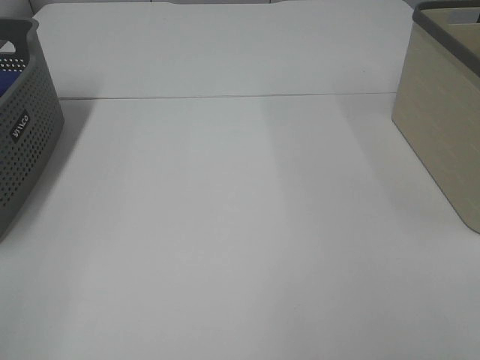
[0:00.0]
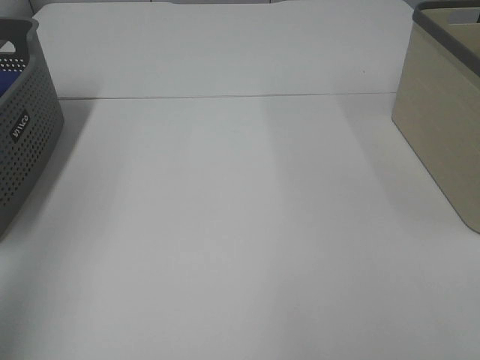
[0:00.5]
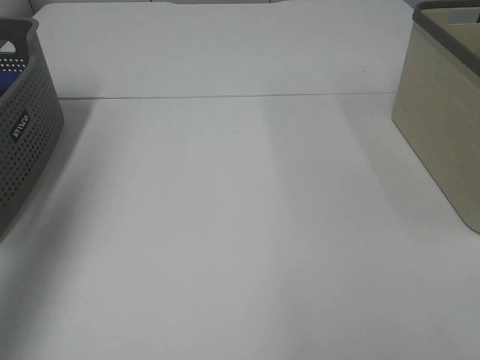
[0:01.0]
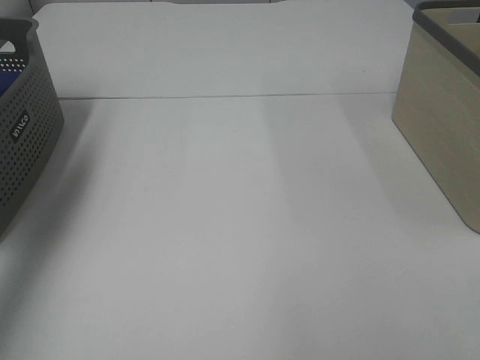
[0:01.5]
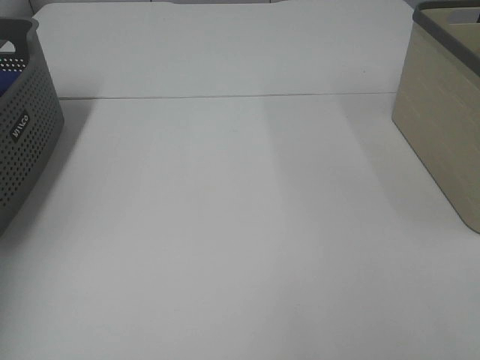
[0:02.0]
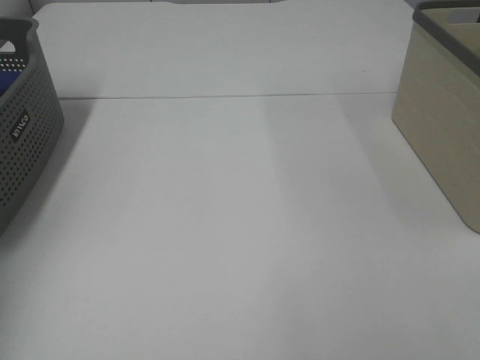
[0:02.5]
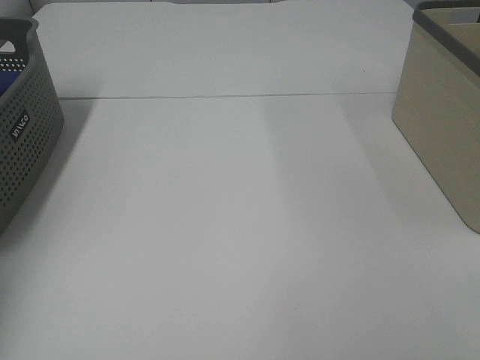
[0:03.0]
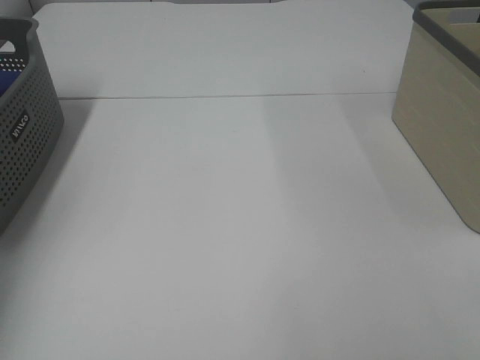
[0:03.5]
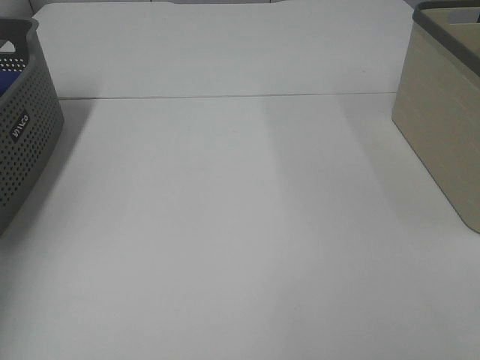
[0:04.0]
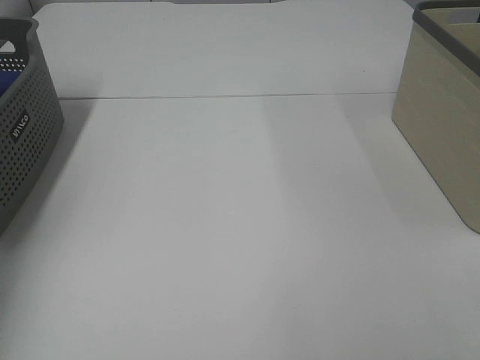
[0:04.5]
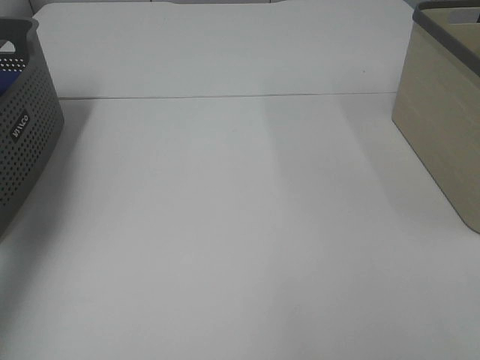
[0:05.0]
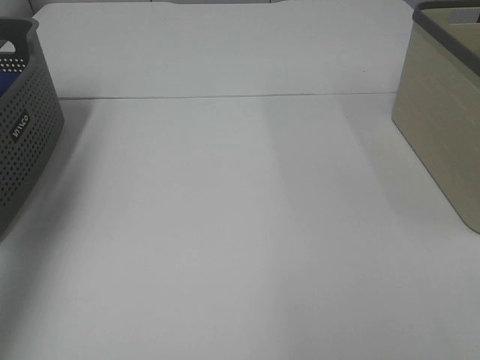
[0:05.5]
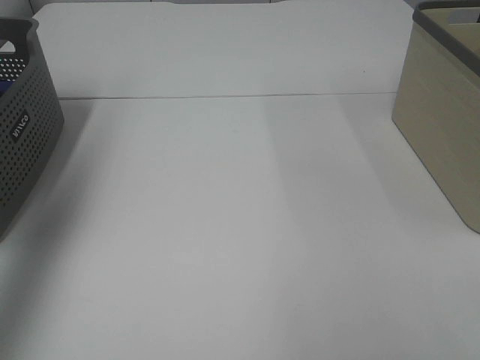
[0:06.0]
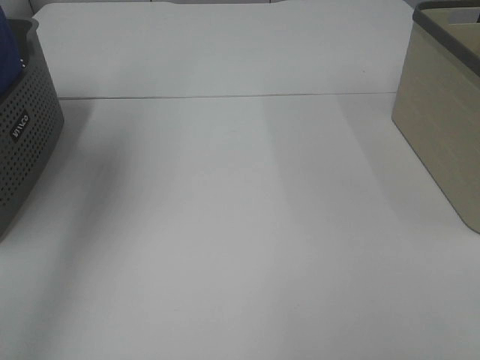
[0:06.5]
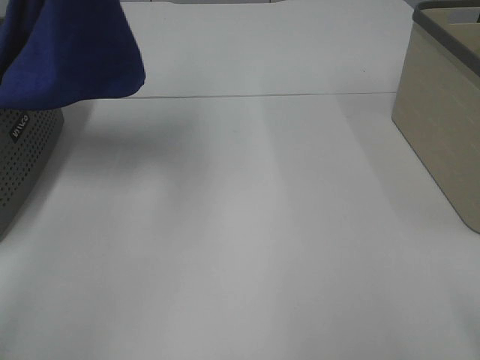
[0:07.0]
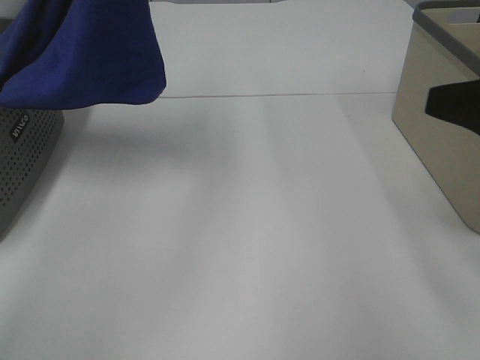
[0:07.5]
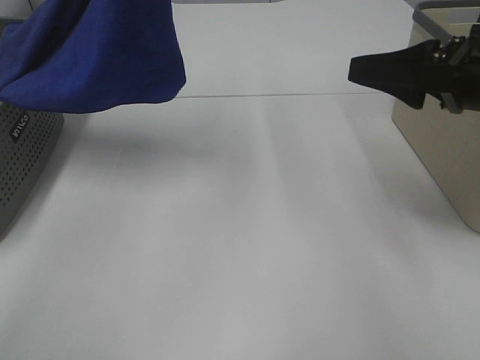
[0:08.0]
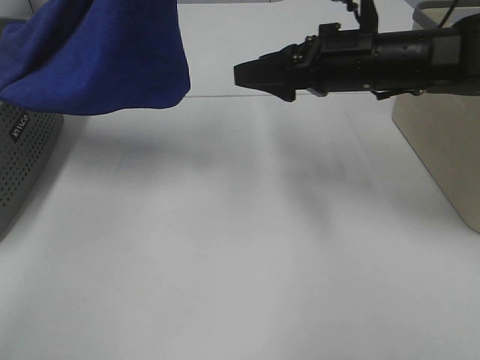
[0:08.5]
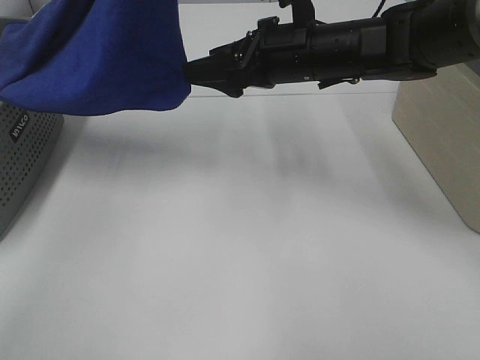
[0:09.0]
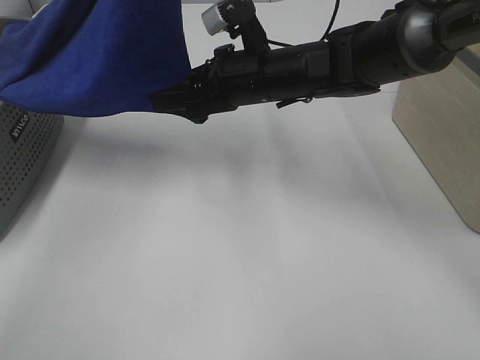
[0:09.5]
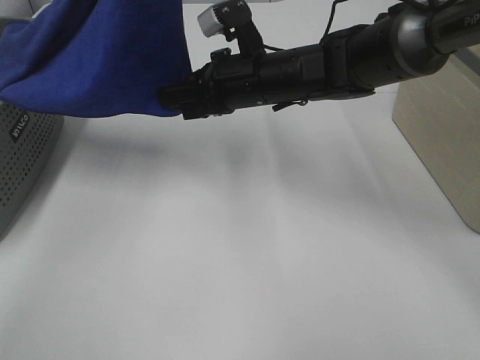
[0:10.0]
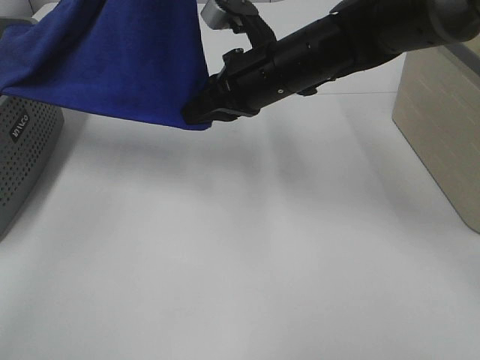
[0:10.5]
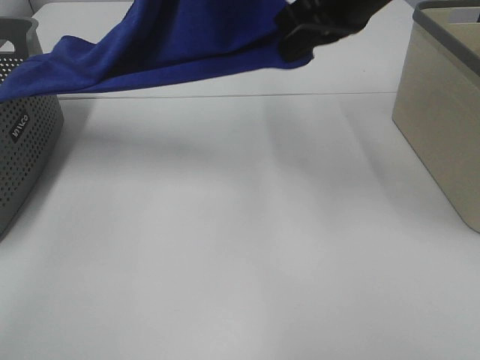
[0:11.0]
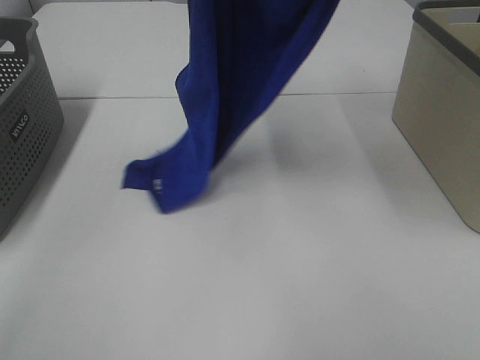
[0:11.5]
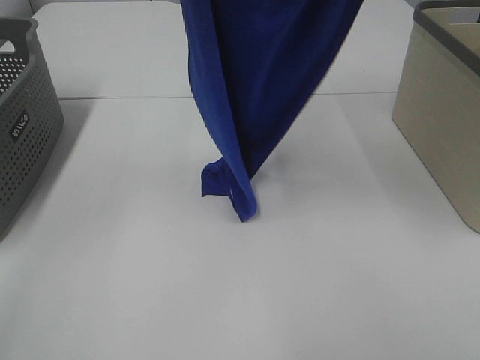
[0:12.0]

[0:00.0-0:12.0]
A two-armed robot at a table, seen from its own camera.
Task of the whole recording: Remove the towel and place it.
Step, 0:06.0 to 0:10.0: Right hand: grab a corner of the blue towel and straighten it.
0:00.0 to 0:02.0: The left gripper goes some 35 cm forward.
0:04.0 to 0:06.0: The left gripper is displaced upward and backward by about 30 cm.
0:06.0 to 0:08.0: The right gripper moves forward, roughly 25 cm. The left gripper is displaced to the right by some 25 cm.
0:08.0 to 0:10.0: The right gripper is displaced to the left and forward by about 25 cm, and closes its fingers.
0:10.0 to 0:12.0: The right gripper shifts about 35 cm upward. The left gripper shifts some 10 cm upward and backward.

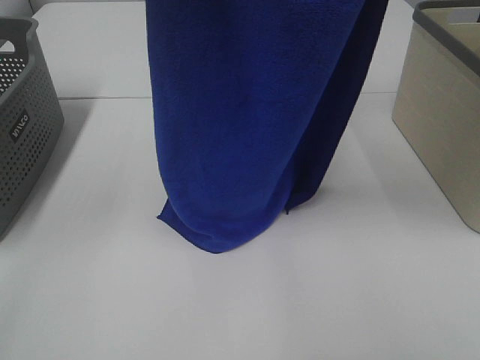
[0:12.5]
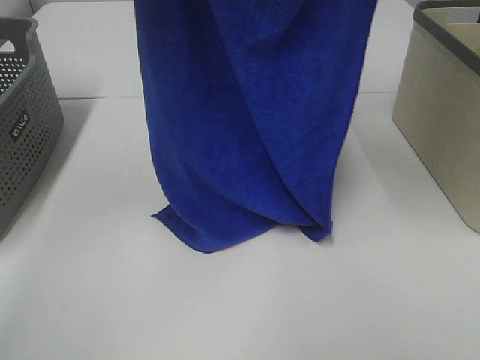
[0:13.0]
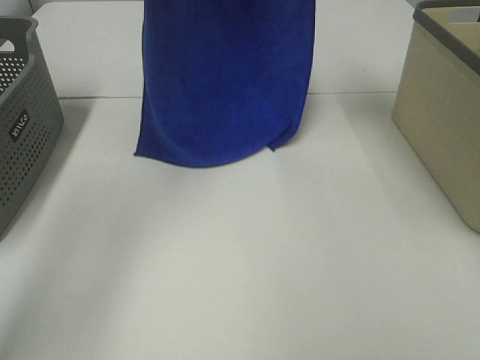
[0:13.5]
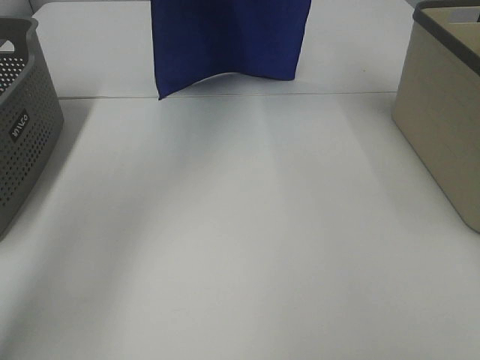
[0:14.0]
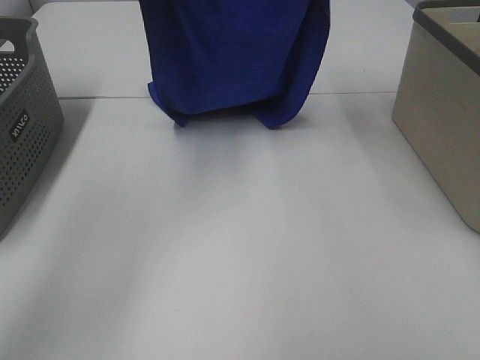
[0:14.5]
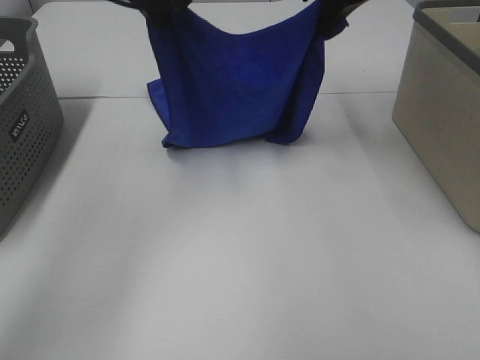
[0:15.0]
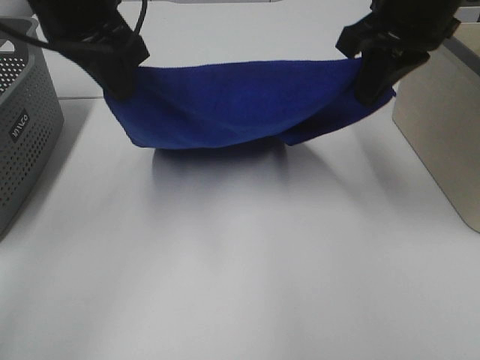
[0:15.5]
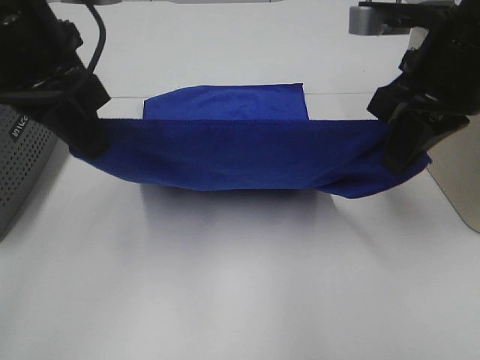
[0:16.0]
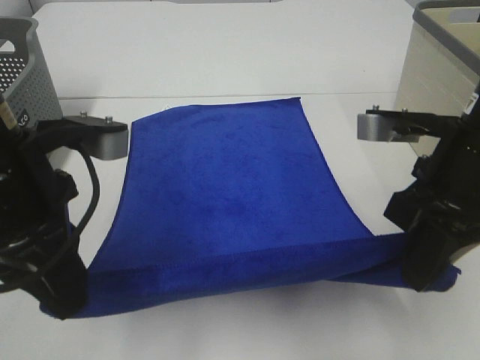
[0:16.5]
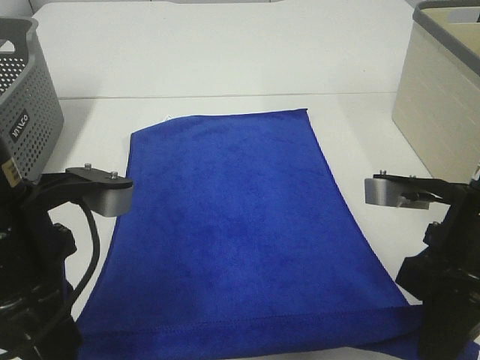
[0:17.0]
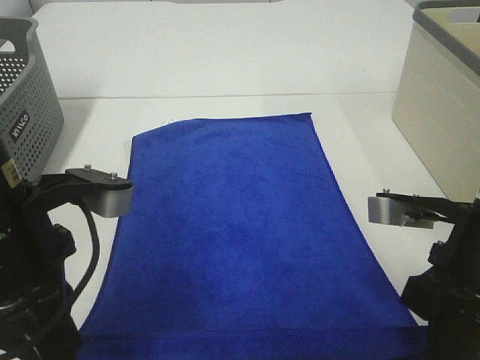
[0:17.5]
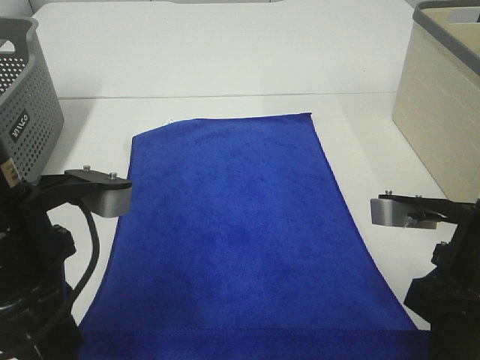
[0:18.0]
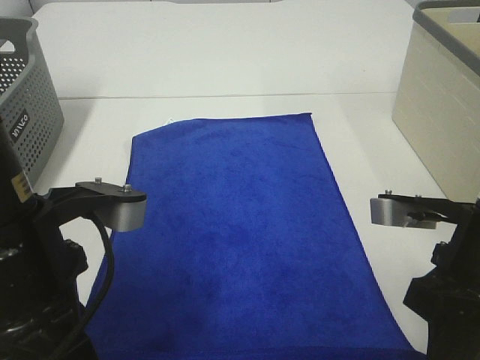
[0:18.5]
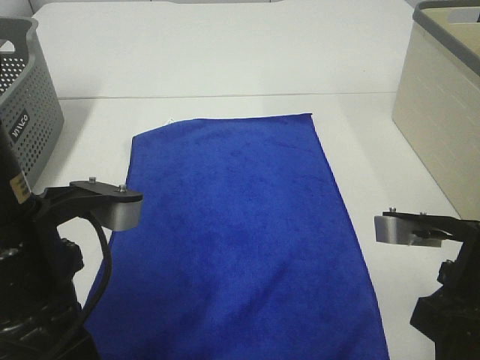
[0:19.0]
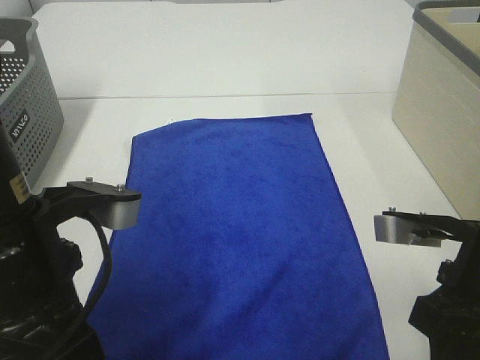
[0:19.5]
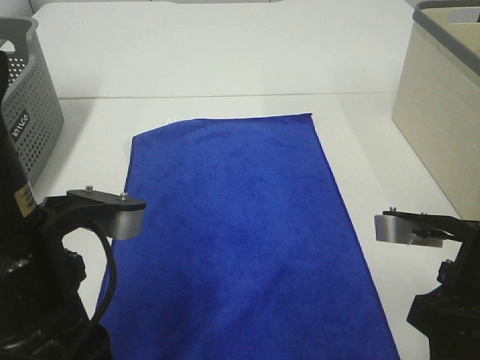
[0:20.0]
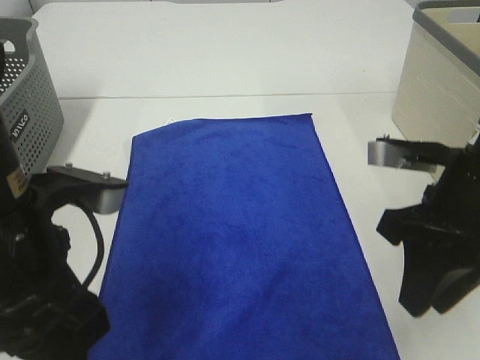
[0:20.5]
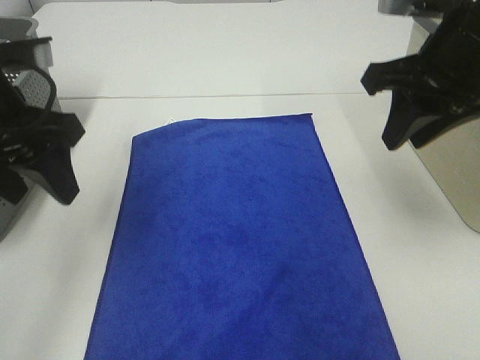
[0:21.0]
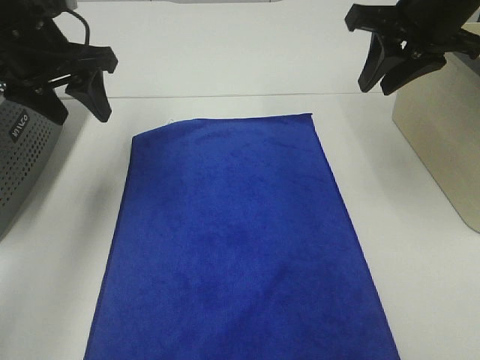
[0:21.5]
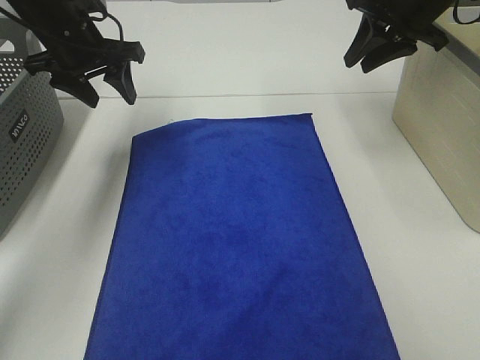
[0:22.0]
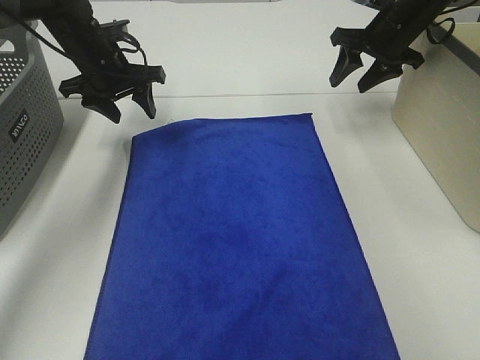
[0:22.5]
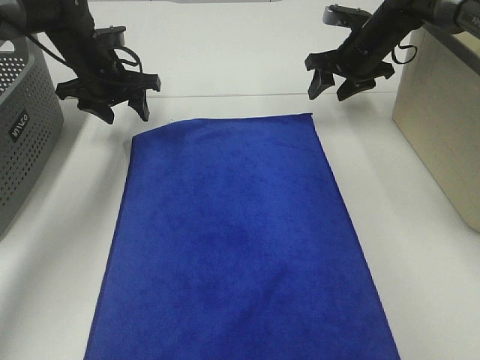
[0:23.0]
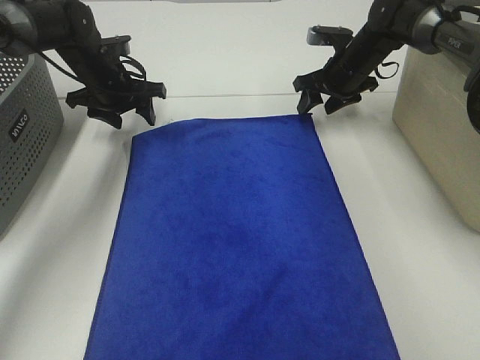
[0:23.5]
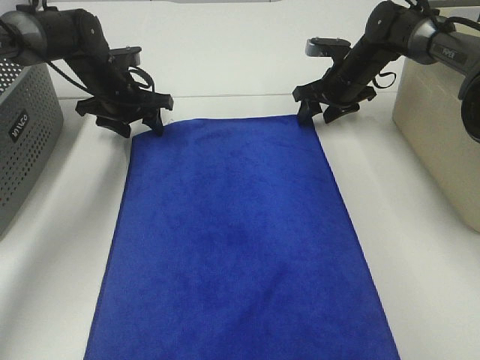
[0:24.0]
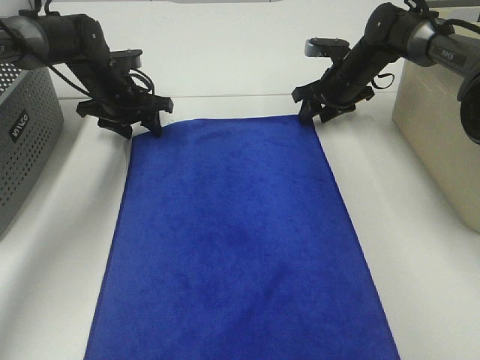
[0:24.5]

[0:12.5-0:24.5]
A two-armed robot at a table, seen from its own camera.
Task of the whole recording: Remove the towel and place it.
Step, 0:12.5 to 0:15.0: Left hand: spread the blue towel flat on the table.
Step, 0:15.5 to 0:22.0: Left hand:adjust the blue towel.
Step, 0:15.5 to 0:22.0: Right hand:adjust the blue towel.
0:12.5 to 0:14.5: Both grippers move forward and downward, about 25 cm.
0:14.5 to 0:16.5: Both grippers travel together backward and downward, approximately 30 cm.
0:16.5 to 0:18.5: The right gripper shifts by approximately 5 cm.
0:18.5 to 0:20.5: The left gripper opens its fingers; the right gripper moves about 5 cm.
0:20.5 to 0:22.5: The two grippers go roughly 30 cm forward.
0:22.5 to 0:24.5: The right gripper travels downward by about 10 cm, while the left gripper is displaced downward by about 5 cm.

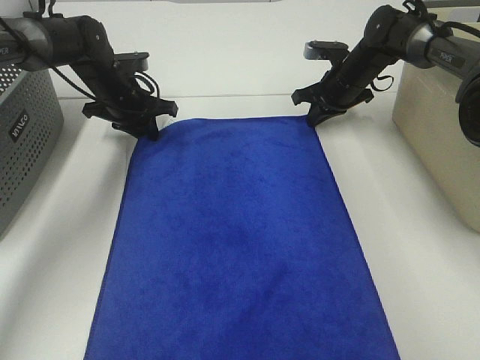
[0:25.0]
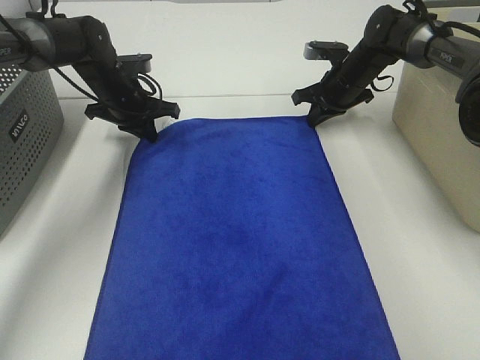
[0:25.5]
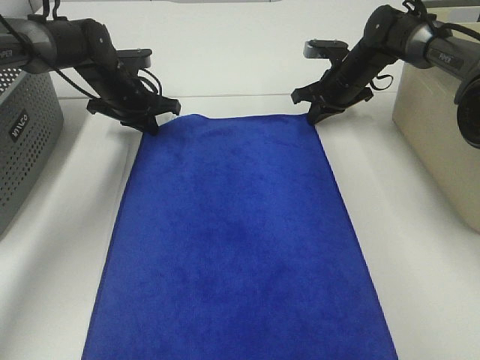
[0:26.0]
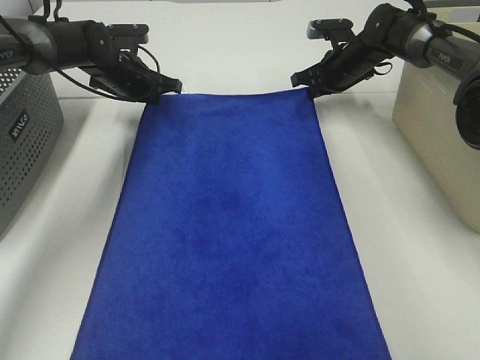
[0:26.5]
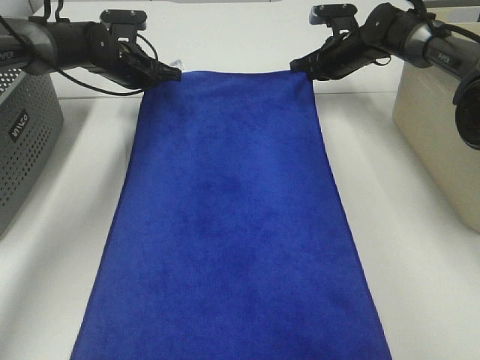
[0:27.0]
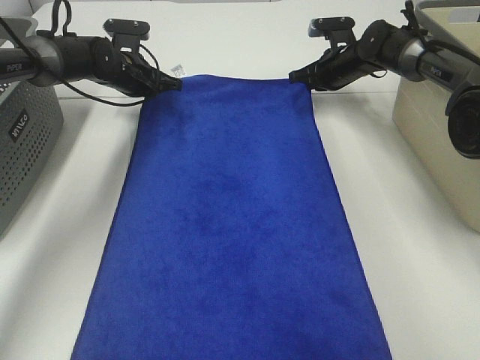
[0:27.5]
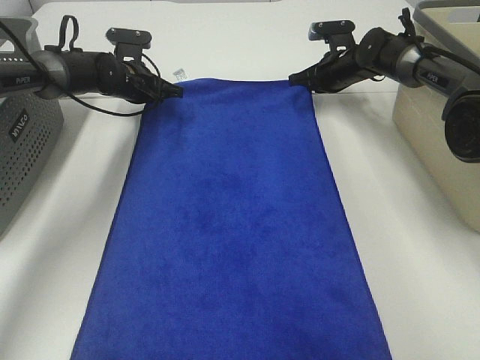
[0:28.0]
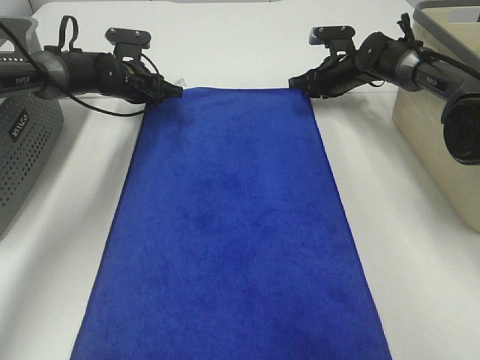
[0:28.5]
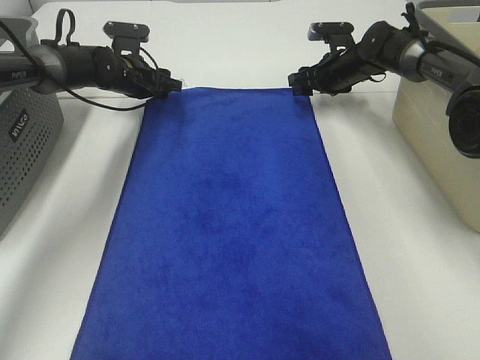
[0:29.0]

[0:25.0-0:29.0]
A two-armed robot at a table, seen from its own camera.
Task of the whole recording: Remove the towel and place it.
0:27.0 to 0:29.0: The left gripper opens, while the right gripper opens up.
